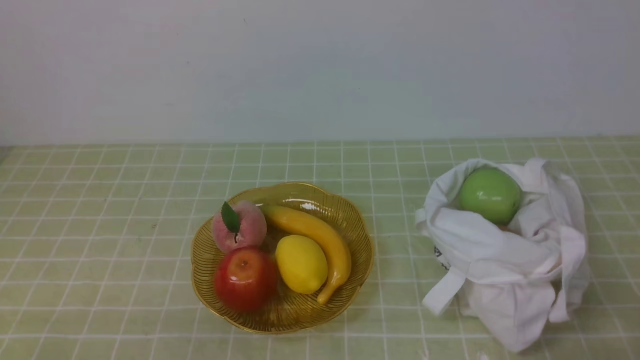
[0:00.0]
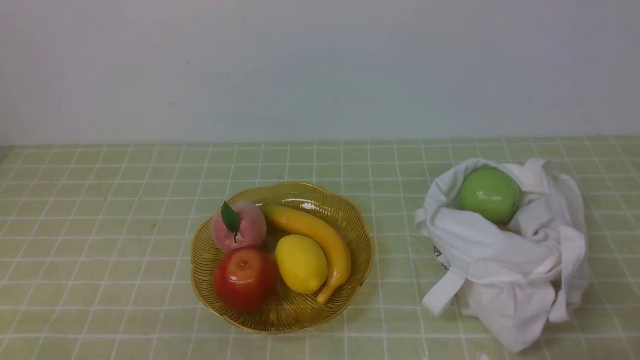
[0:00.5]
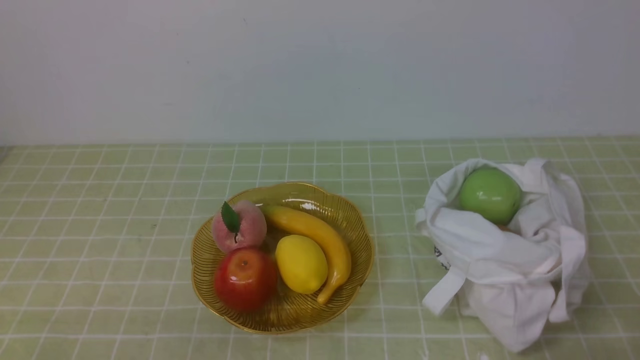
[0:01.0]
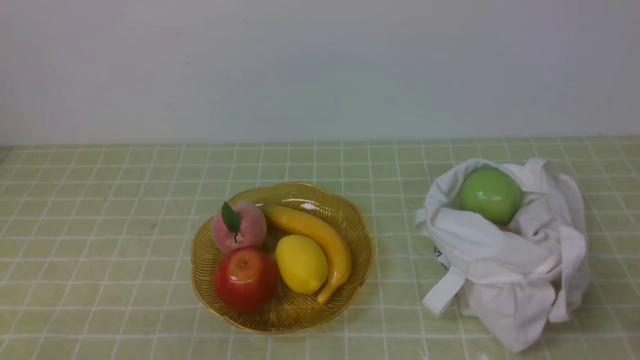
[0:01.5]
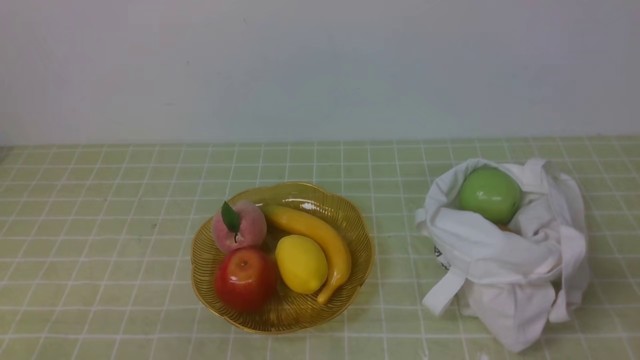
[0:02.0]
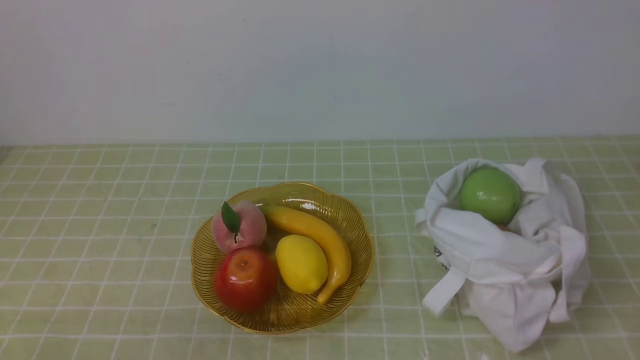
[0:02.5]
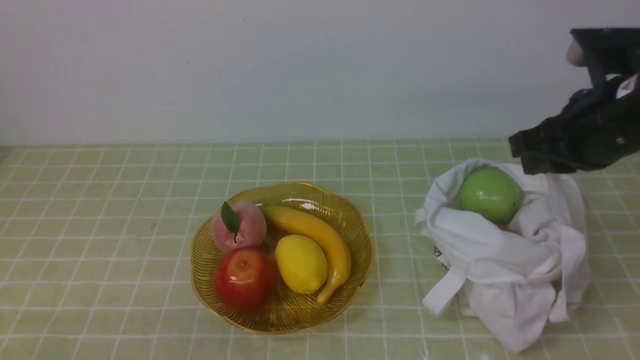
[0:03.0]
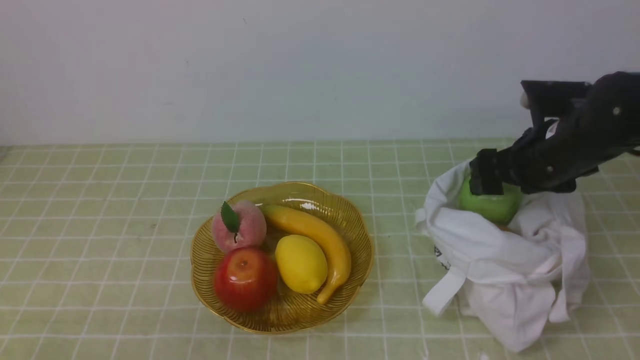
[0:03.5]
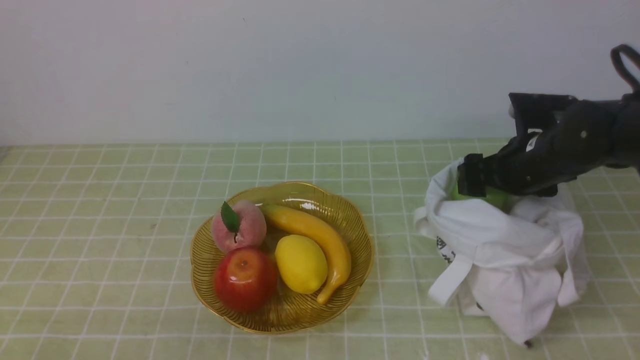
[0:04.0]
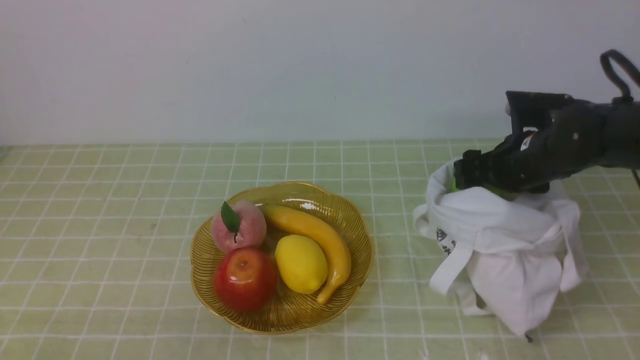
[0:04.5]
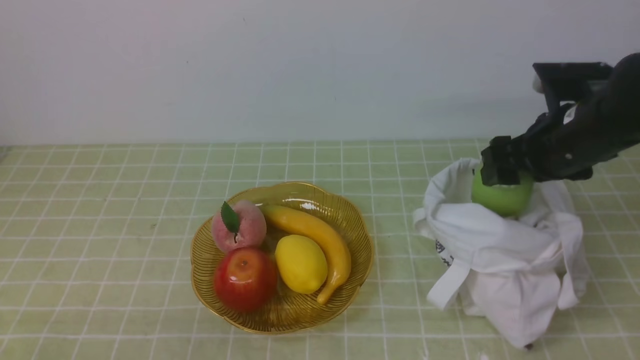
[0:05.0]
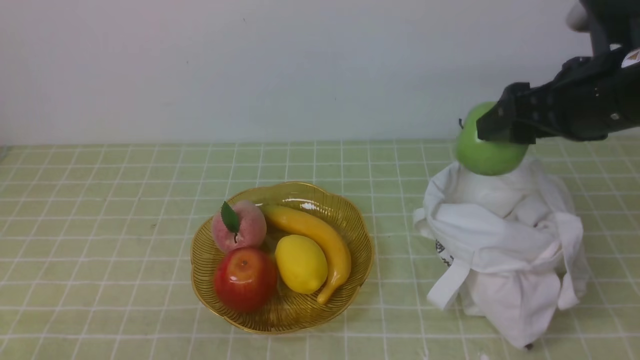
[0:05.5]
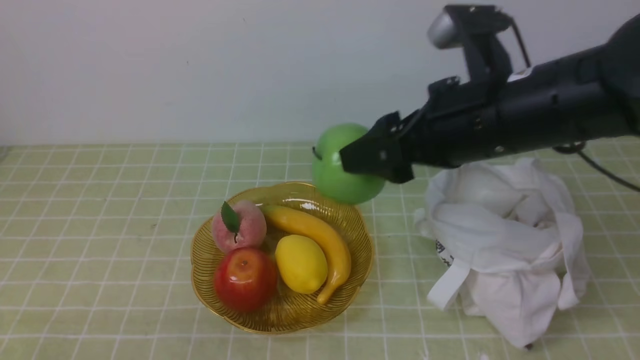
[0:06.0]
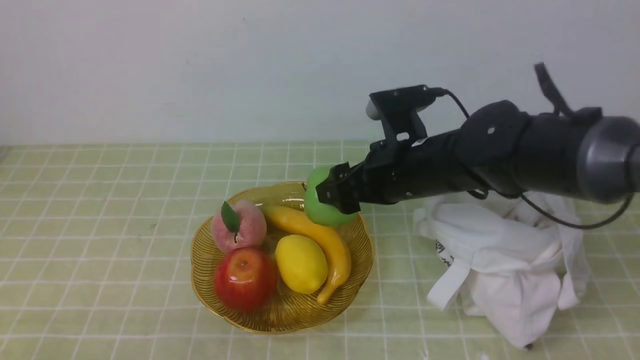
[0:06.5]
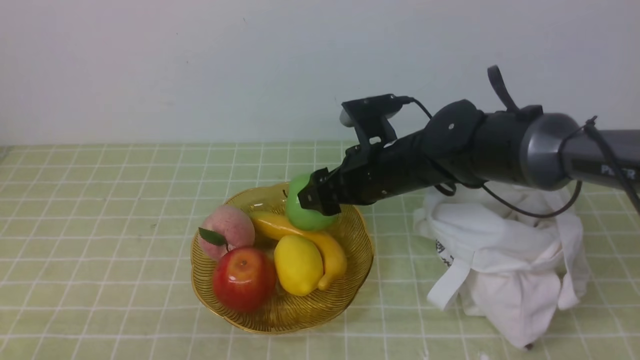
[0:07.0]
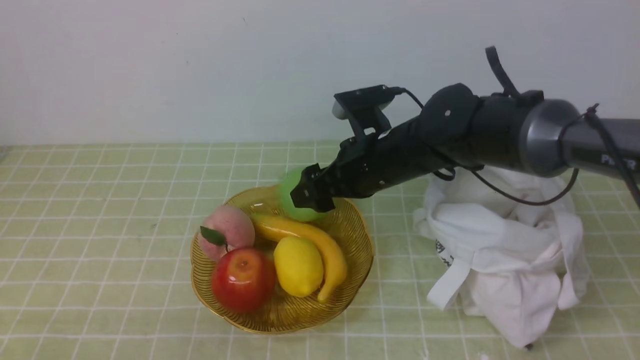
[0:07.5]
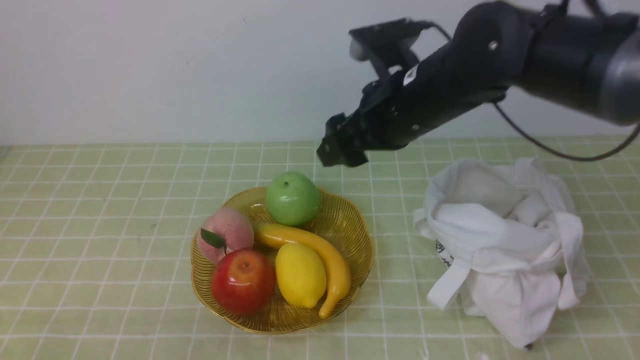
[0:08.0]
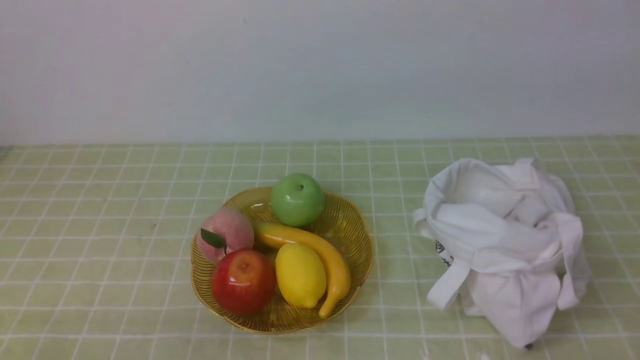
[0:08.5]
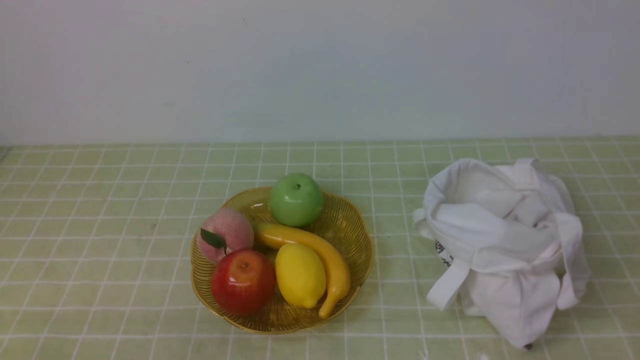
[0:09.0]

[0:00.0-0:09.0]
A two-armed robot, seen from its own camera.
Step, 0:00.0 to 0:04.5: use the right arm to grab an apple from the bag.
Step, 0:05.0 to 0:07.5: use the right arm to put the apple into the empty plate on the left.
0:02.0 to 0:04.5: The right gripper moves forward, some 35 cm, and opens its fingers.
0:04.5 to 0:07.0: The right gripper goes some 15 cm to the left.
0:07.0 to 0:09.0: The right gripper is displaced backward, to the right and upward by some 50 cm, and closes up.

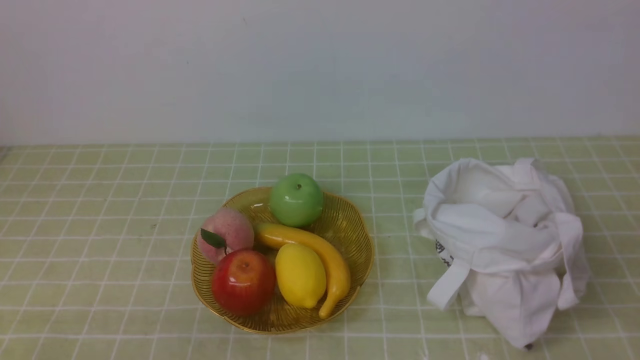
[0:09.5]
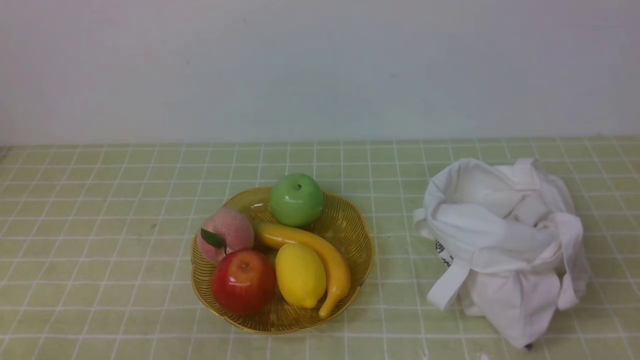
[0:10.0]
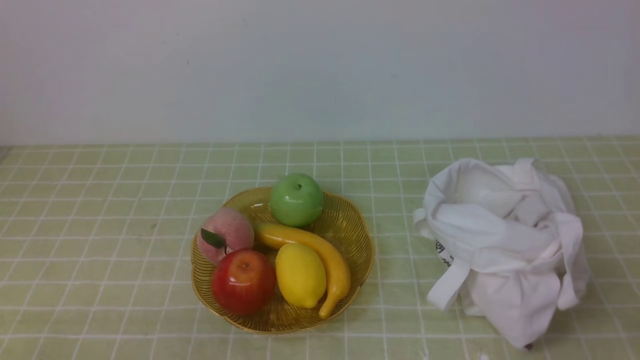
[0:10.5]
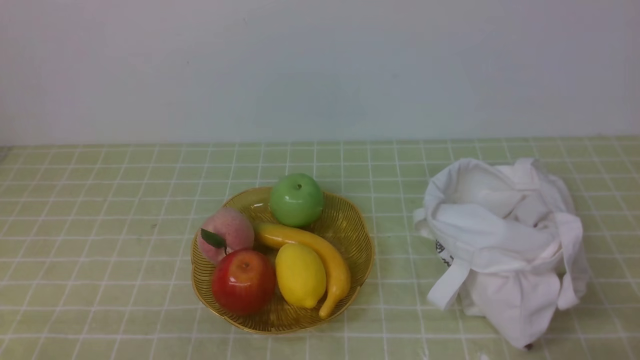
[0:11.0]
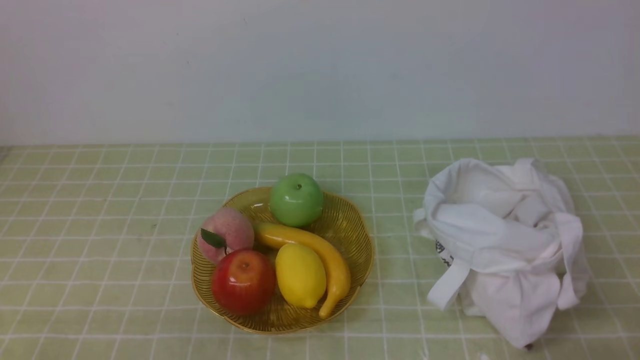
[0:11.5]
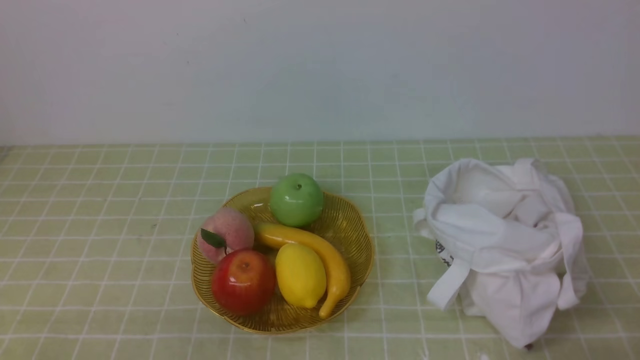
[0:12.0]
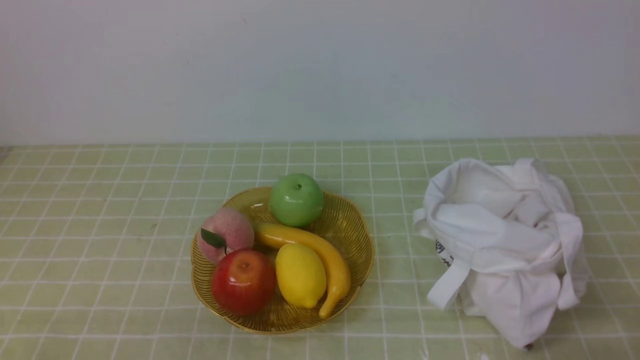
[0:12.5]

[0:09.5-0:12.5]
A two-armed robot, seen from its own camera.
0:11.0 to 0:12.5: Neither gripper changes place.
